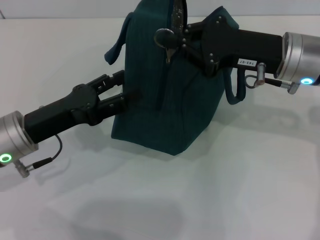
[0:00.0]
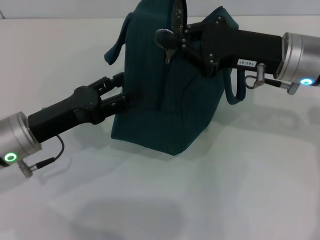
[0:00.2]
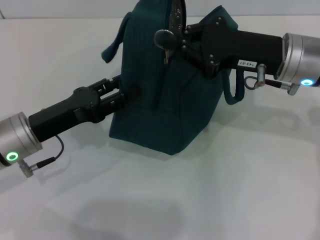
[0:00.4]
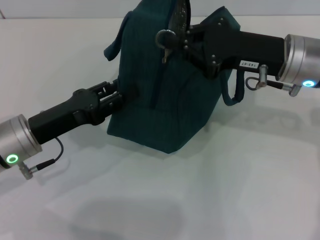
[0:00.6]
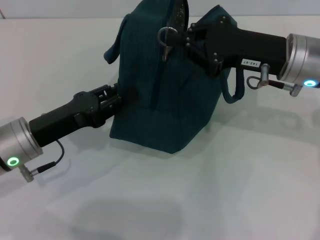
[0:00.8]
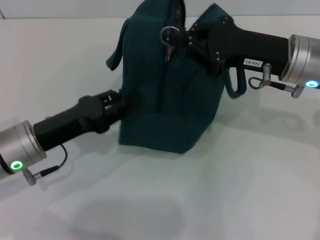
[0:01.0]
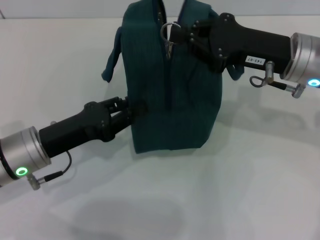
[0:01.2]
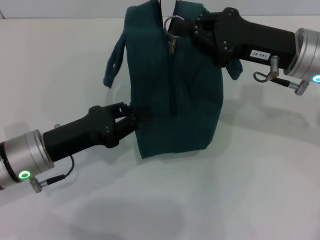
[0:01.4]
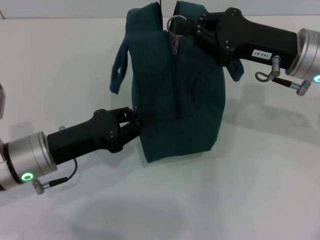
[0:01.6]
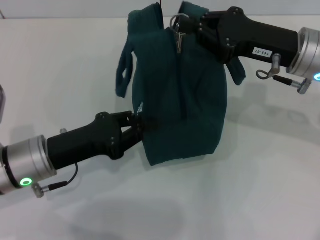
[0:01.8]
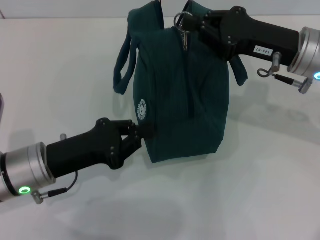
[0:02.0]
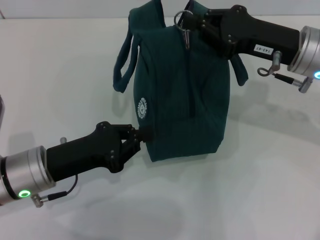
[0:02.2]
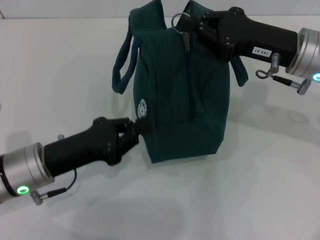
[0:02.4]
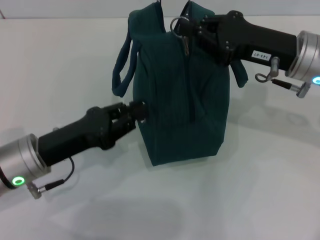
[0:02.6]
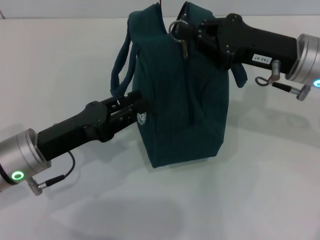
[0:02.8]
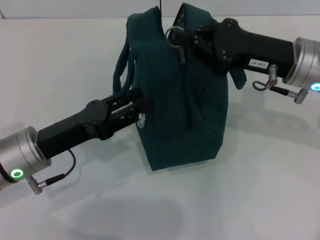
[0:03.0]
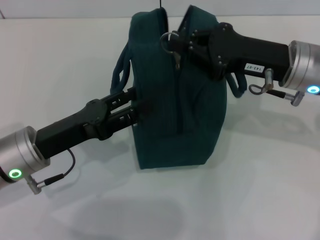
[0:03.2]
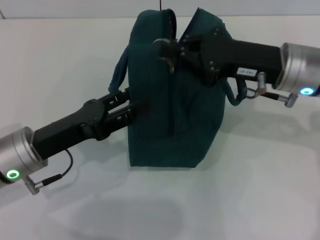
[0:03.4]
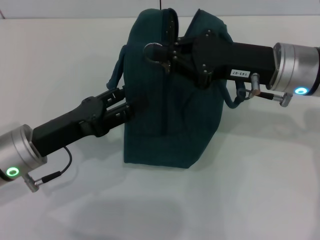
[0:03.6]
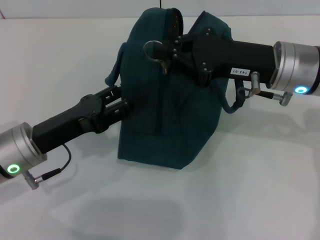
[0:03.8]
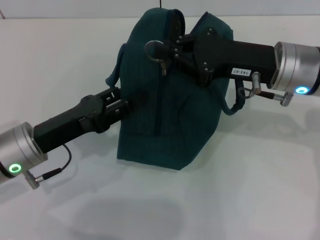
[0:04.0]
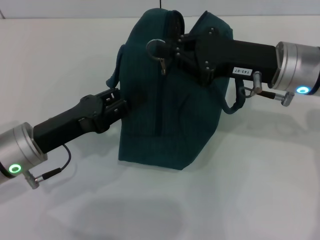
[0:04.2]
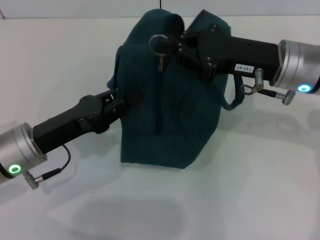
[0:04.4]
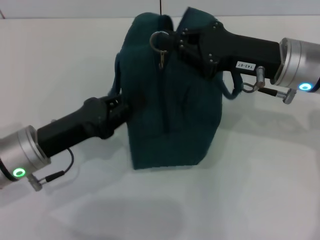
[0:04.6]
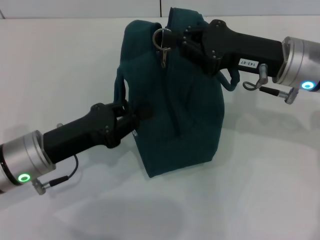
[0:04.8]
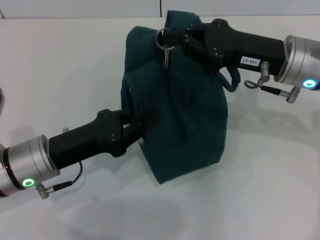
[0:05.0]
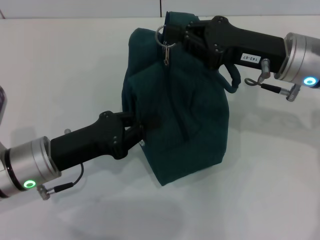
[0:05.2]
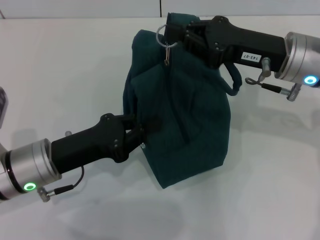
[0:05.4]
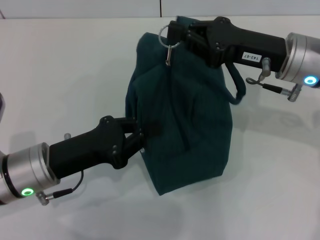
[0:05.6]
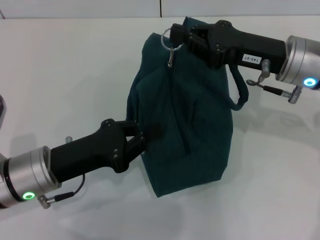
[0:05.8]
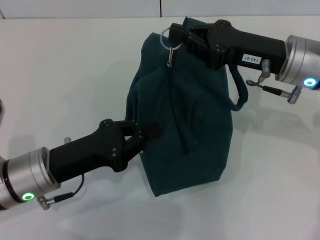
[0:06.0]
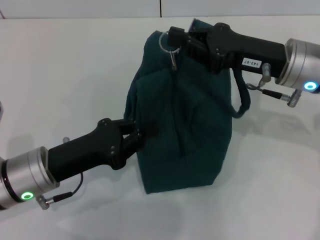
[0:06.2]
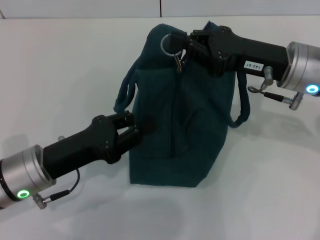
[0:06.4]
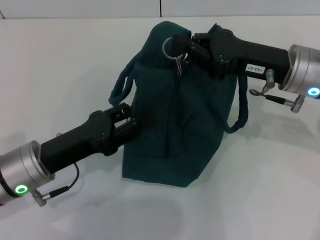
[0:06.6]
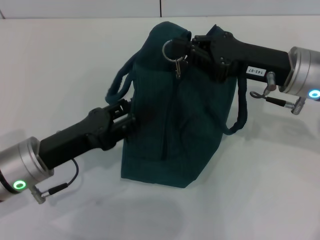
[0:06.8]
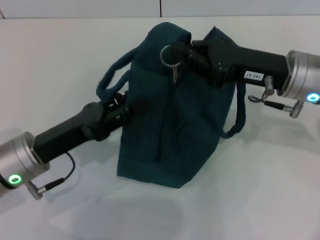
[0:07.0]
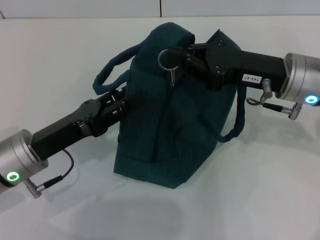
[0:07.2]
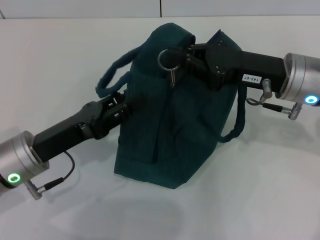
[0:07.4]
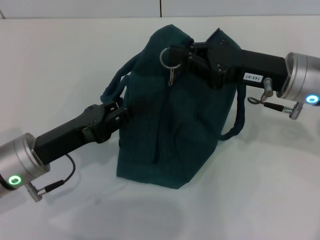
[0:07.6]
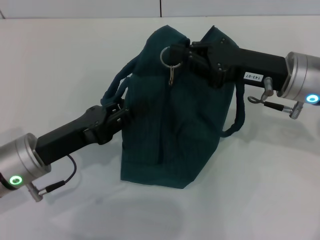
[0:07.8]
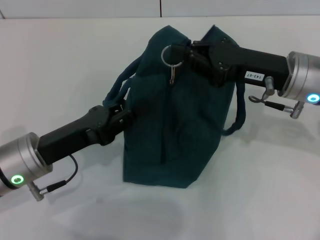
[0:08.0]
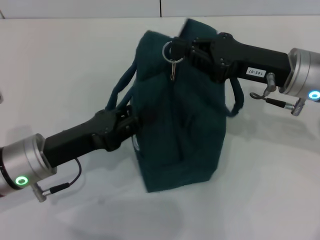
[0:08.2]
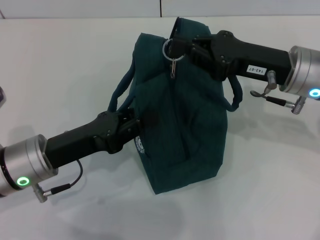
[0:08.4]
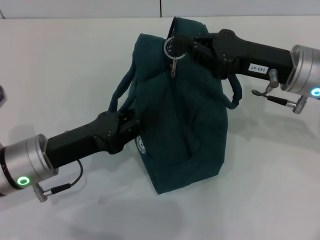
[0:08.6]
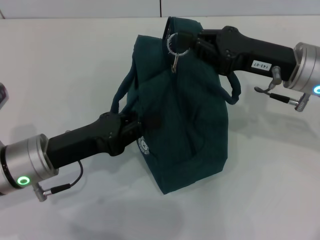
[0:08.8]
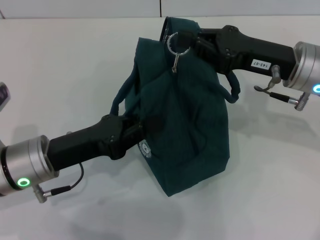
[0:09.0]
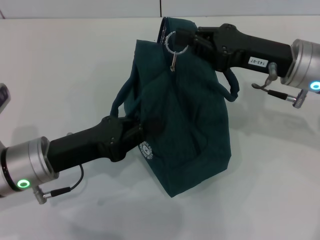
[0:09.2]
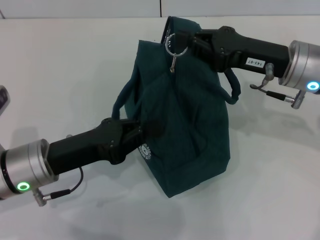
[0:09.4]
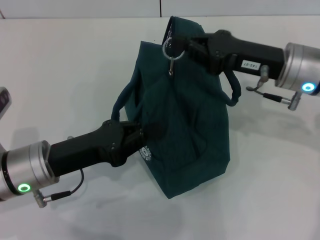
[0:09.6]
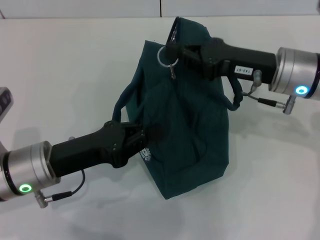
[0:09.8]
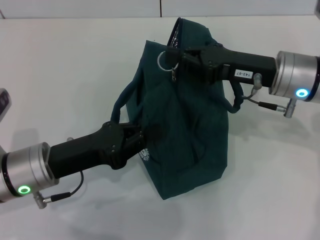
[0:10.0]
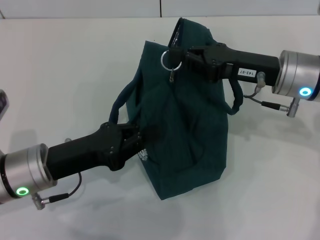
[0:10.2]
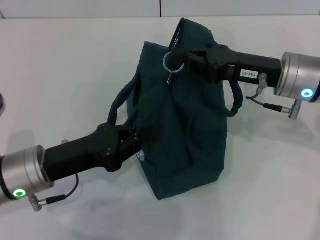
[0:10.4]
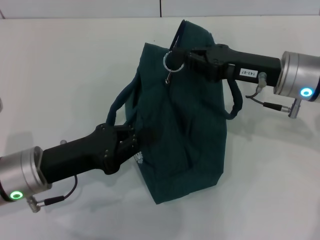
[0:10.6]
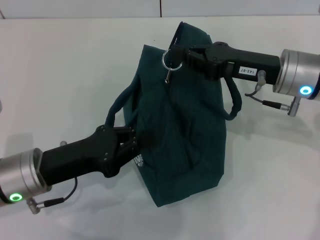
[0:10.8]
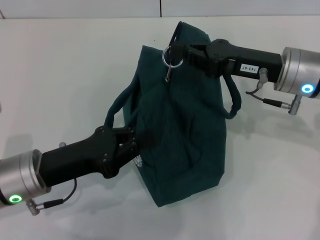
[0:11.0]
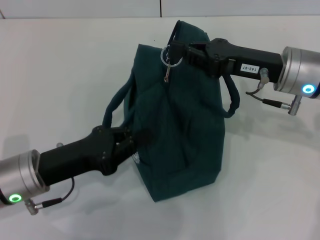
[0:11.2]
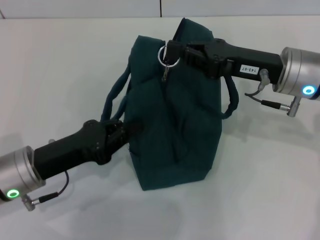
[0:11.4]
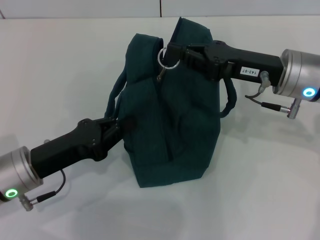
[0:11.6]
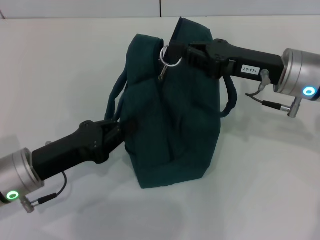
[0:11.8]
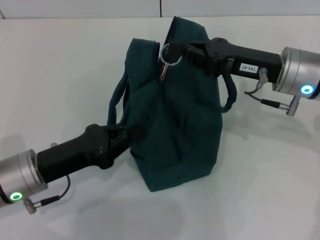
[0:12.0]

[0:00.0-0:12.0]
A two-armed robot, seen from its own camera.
0:00.0 to 0:01.6: The left gripper closes up.
0:01.6 to 0:04.4: There are only small adjustments of the grippers.
0:04.4 to 0:06.0: The left gripper closes its fingers.
0:06.0 to 0:07.6: The left gripper opens up.
0:07.6 to 0:09.0: The left gripper closes.
0:09.0 to 0:12.0: There are only small adjustments of the grippers.

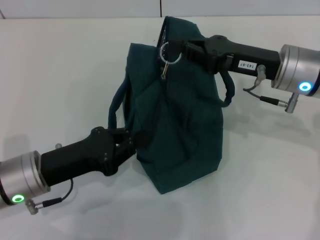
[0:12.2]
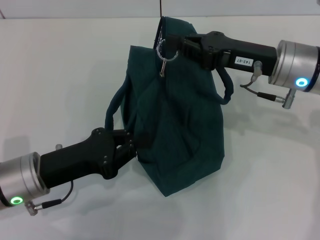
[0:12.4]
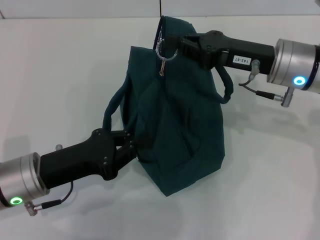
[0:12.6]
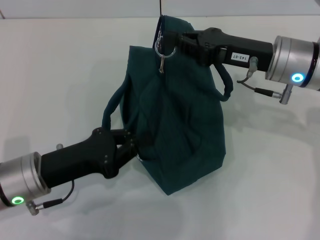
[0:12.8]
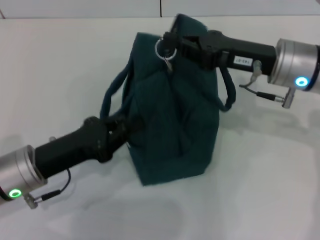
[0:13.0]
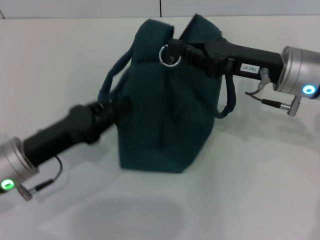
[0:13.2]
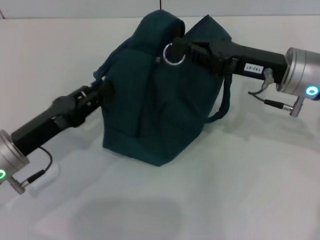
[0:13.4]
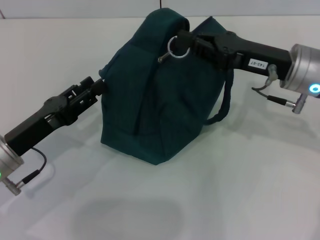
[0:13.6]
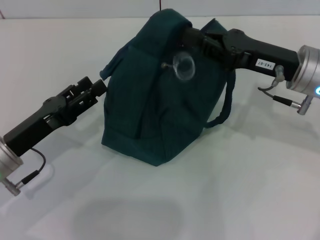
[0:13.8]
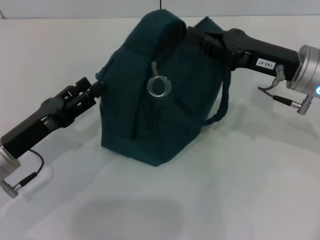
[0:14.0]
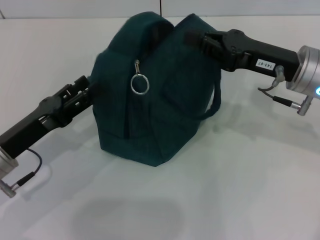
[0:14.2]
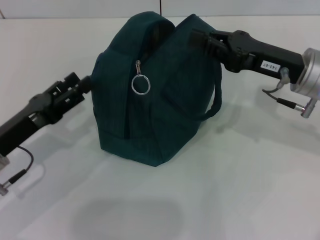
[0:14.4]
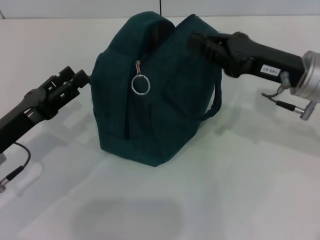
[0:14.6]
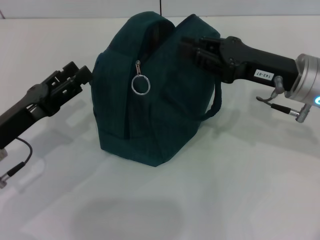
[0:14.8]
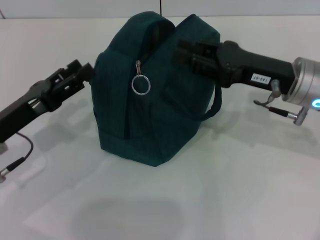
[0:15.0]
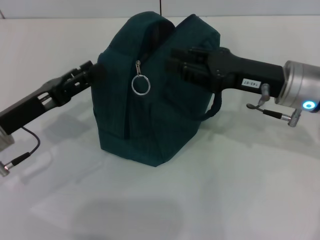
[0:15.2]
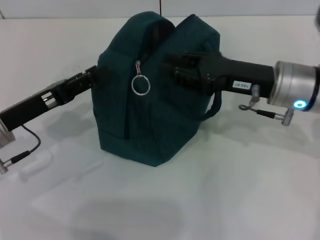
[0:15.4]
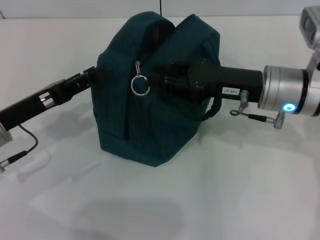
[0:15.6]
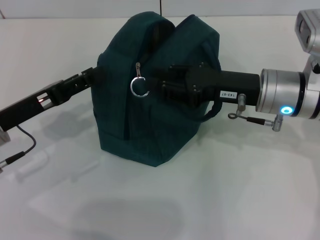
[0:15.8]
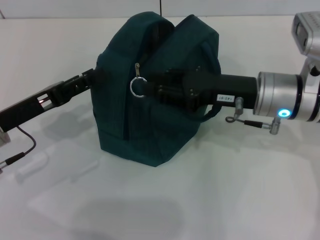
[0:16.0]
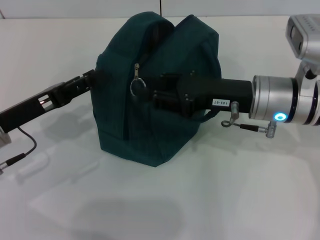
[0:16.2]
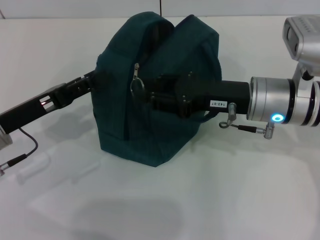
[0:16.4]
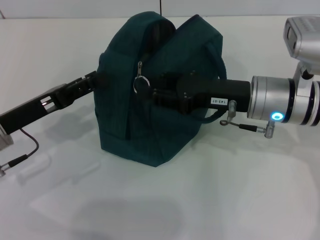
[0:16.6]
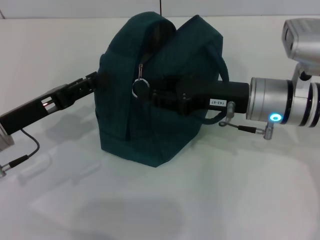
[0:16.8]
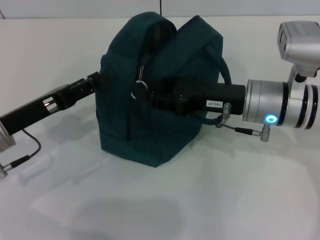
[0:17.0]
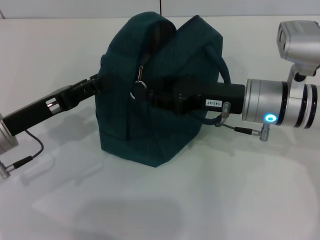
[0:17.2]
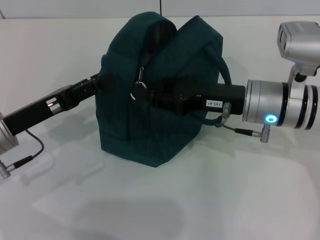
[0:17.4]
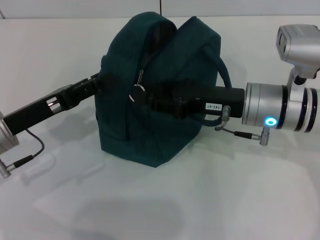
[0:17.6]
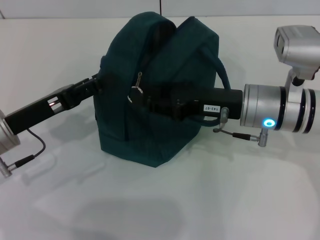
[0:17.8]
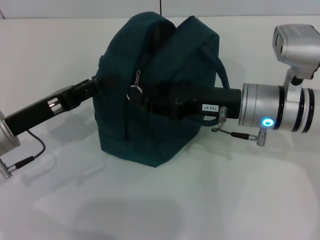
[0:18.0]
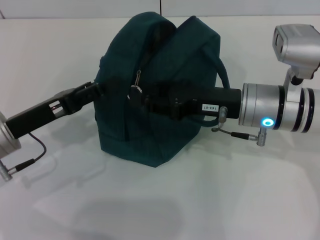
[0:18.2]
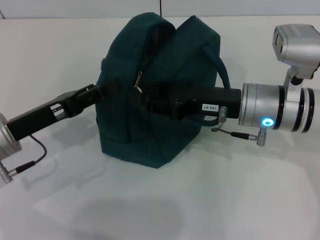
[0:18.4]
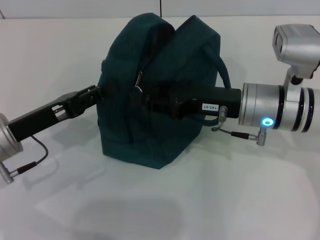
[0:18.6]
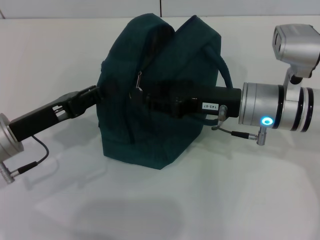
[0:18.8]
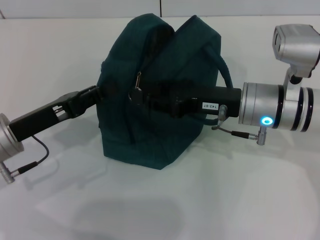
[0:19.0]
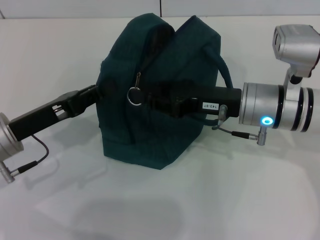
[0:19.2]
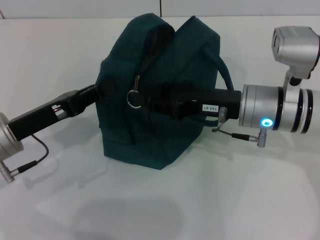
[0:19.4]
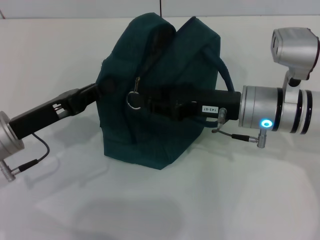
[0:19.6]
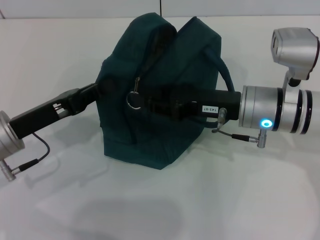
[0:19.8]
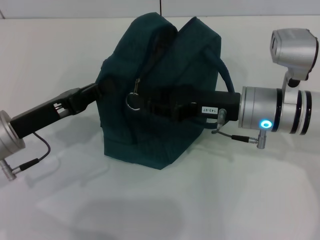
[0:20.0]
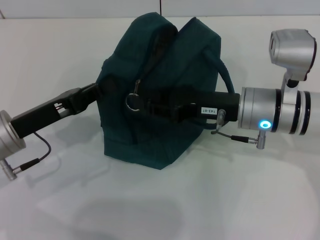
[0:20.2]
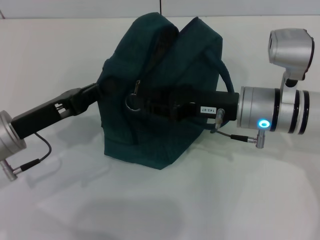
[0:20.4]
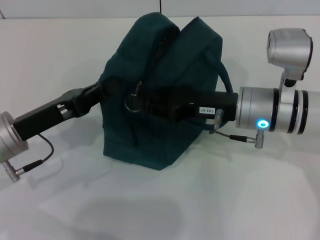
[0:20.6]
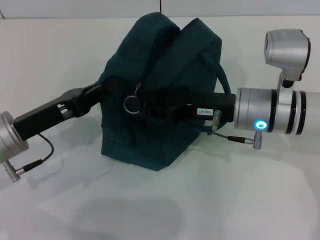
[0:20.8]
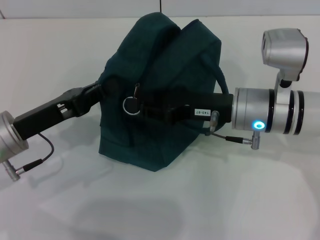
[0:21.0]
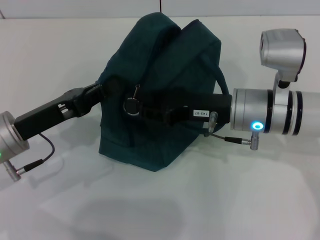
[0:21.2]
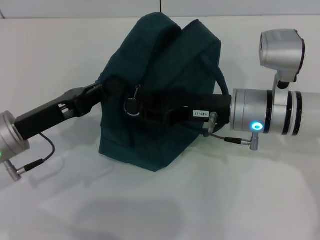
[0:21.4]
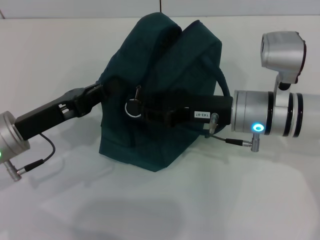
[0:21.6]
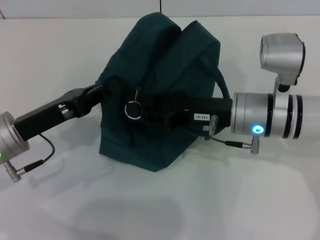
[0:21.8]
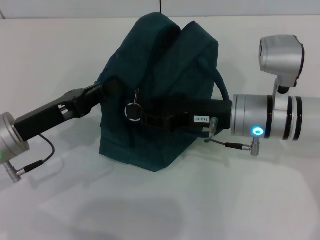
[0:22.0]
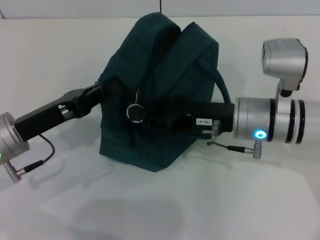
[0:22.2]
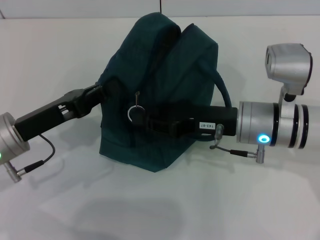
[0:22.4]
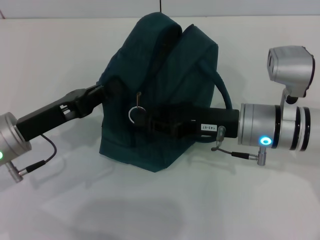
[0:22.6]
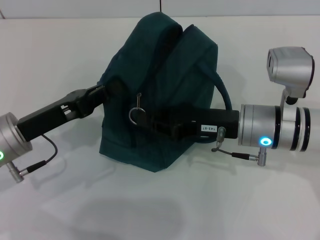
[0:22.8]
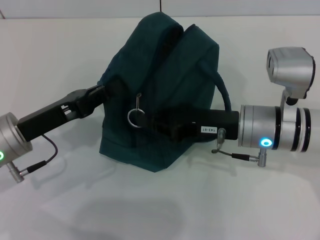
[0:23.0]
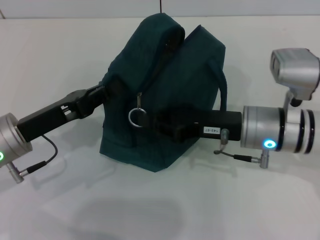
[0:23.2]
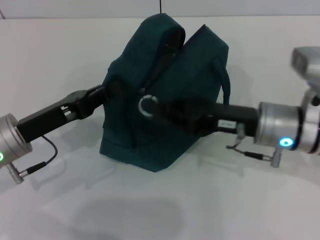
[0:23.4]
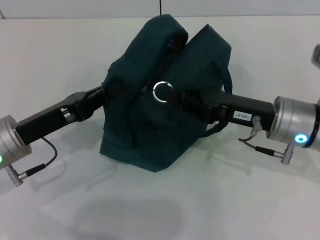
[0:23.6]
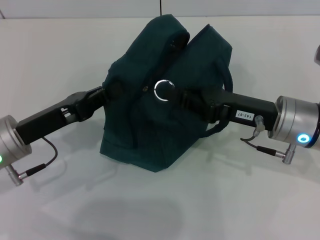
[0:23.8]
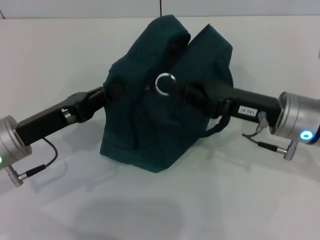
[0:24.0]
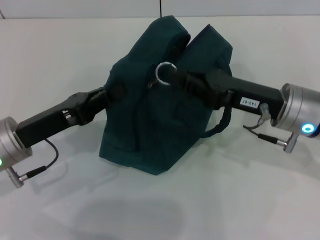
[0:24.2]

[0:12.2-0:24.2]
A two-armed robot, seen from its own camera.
0:12.2 to 0:13.8: The left gripper opens up.
0:13.8 to 0:15.2: The right gripper opens.
0:15.2 to 0:16.6: The grippers move only a little.
0:16.6 to 0:18.2: The two grippers keep their place.
0:18.2 to 0:19.8: The left gripper closes.
0:19.8 to 0:21.2: Both grippers stay put.
0:21.2 to 0:24.2: The grippers move only a little.
